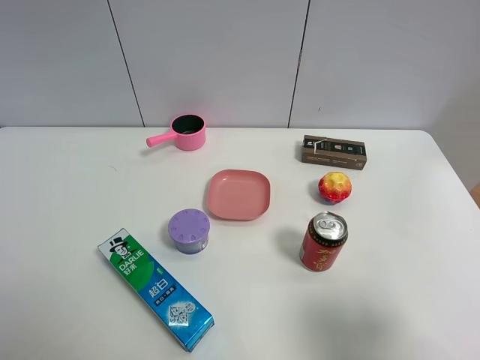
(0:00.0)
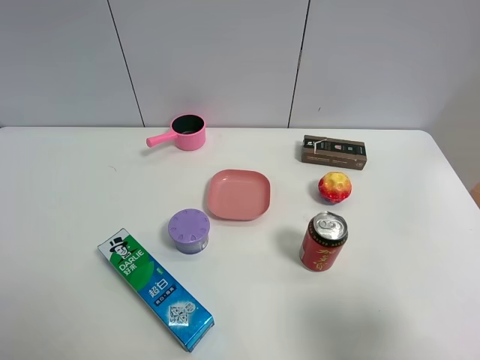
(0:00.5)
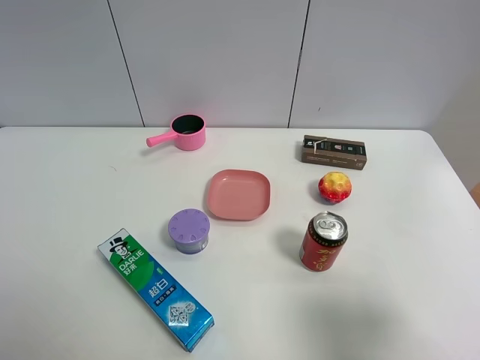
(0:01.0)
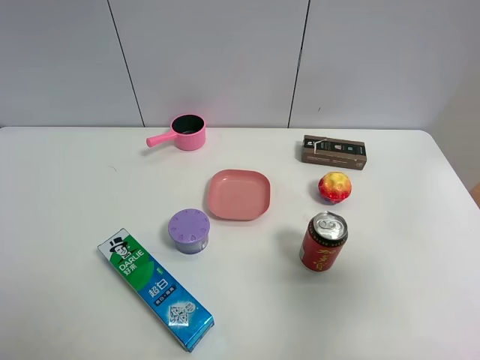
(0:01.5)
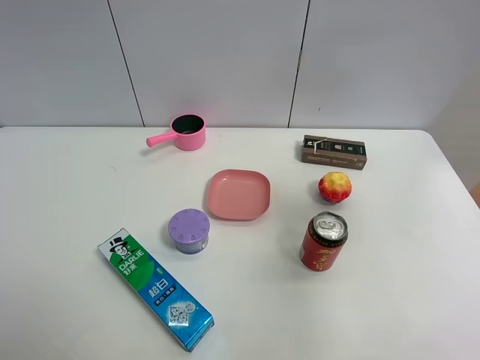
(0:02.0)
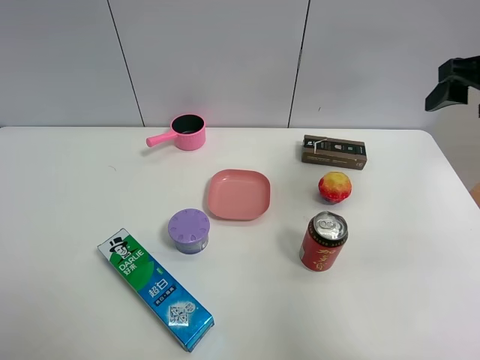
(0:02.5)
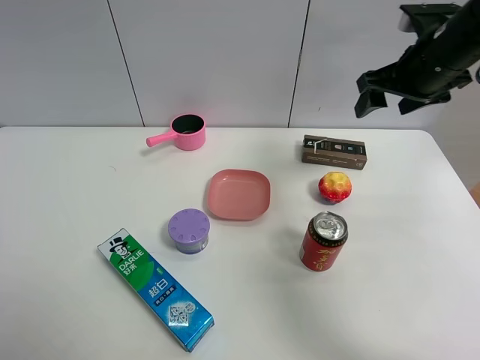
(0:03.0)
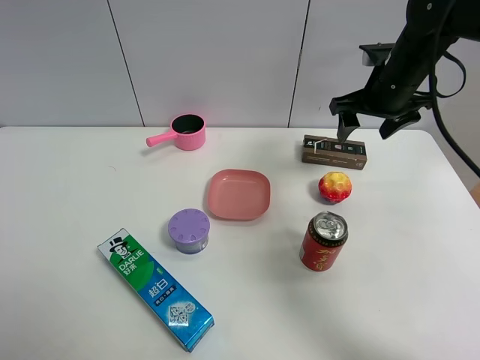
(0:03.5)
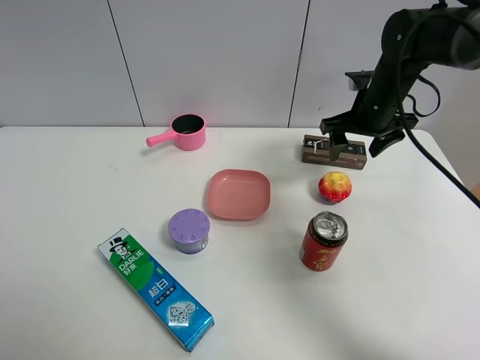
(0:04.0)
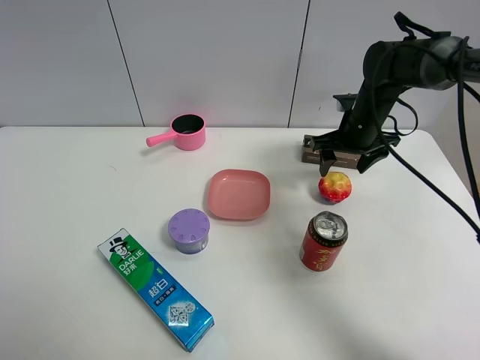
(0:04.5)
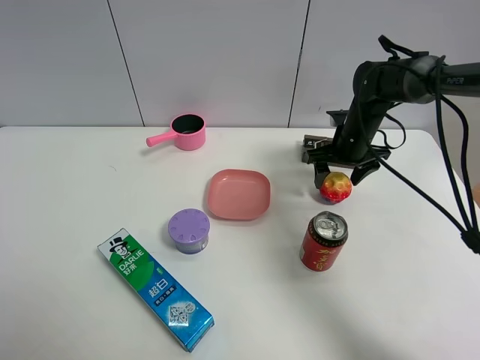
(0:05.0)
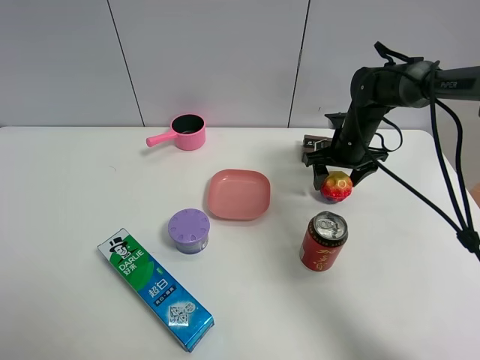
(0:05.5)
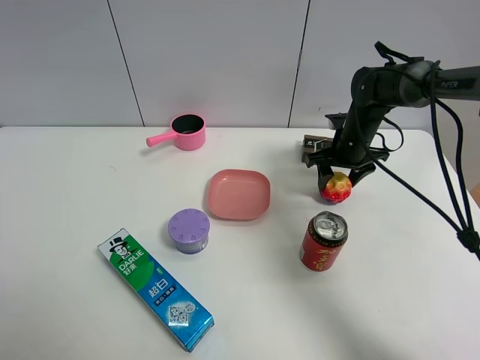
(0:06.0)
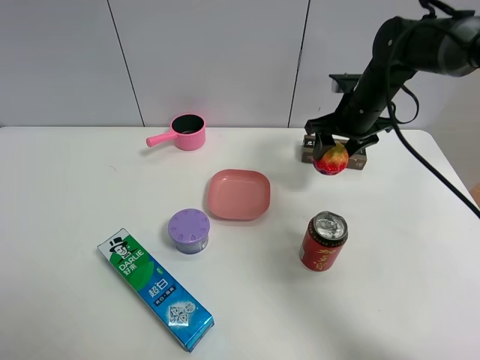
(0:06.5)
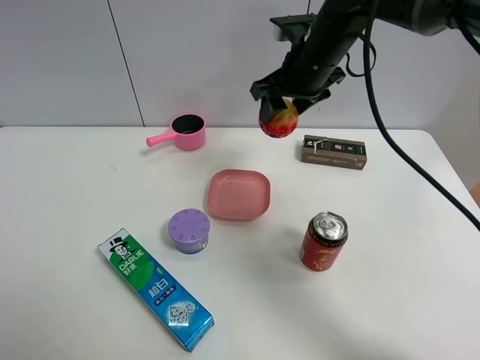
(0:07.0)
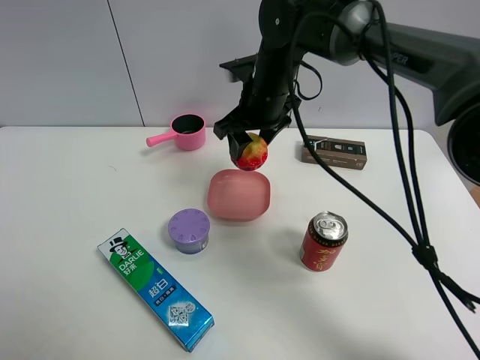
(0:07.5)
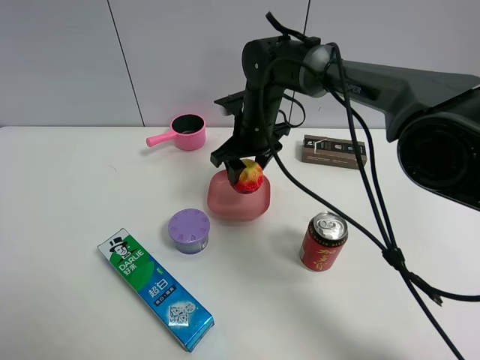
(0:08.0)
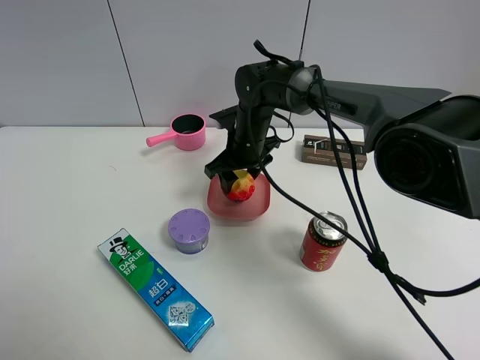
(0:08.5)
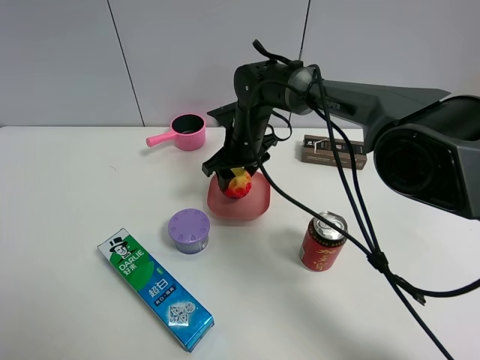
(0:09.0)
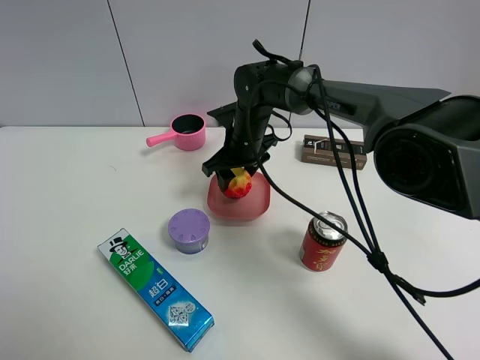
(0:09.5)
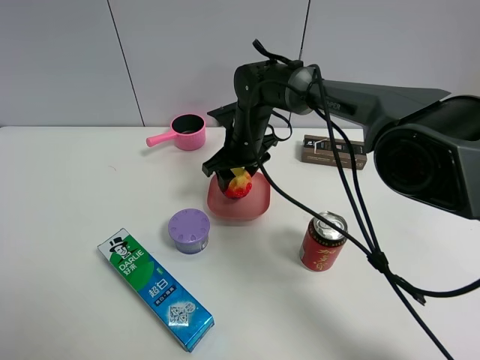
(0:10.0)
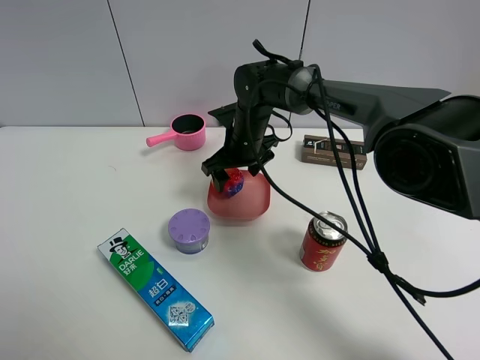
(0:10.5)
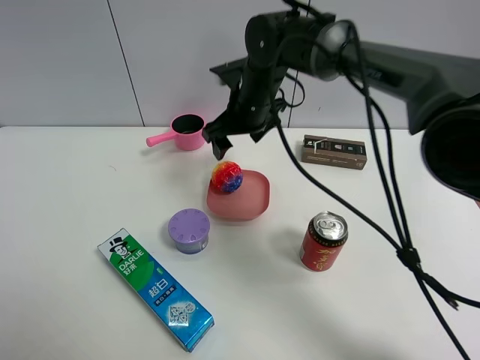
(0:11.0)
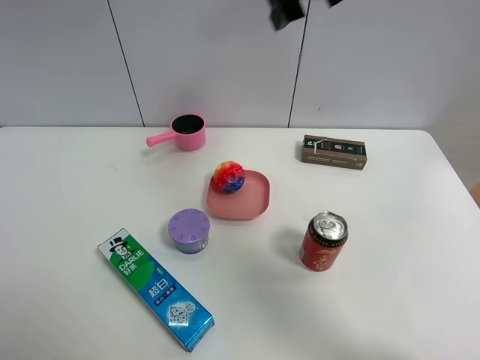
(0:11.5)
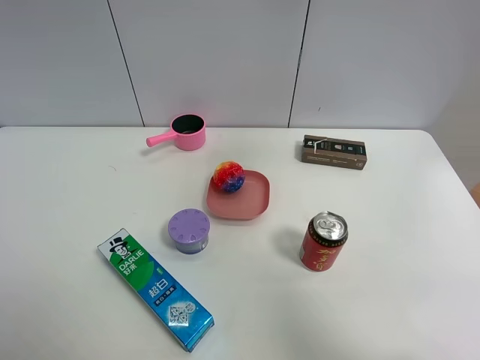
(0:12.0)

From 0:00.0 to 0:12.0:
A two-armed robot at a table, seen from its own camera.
Task of the whole recording: the gripper move the object.
Step, from 0:00.0 to 0:05.5: Grasp the colorful ball with the right gripper.
Step, from 0:06.0 to 0:10.5: Place the colorful ball on the table with the right gripper.
From 0:00.0 to 0:02.0: The right gripper is displaced forward and upward by about 20 cm.
From 0:02.0 to 0:04.0: The right gripper goes about 30 cm forward, downward and to the left.
From 0:04.0 to 0:06.0: The right gripper is displaced downward by roughly 10 cm, and closes up.
From 0:06.0 to 0:08.0: The right gripper moves to the left, approximately 20 cm.
From 0:08.0 to 0:10.0: The grippers move only a little.
From 0:10.0 to 0:12.0: The right gripper is displaced upward, to the right and backward by roughly 50 cm, and opens.

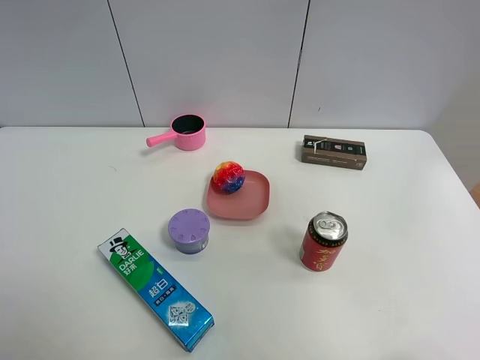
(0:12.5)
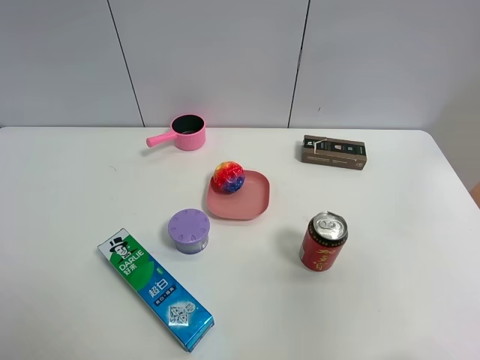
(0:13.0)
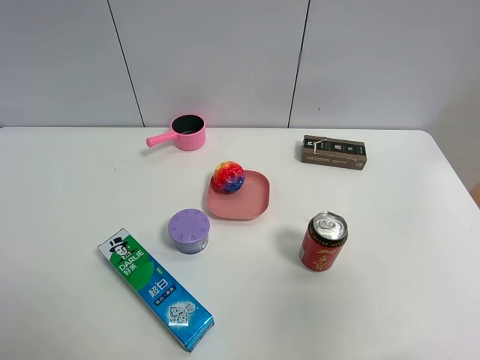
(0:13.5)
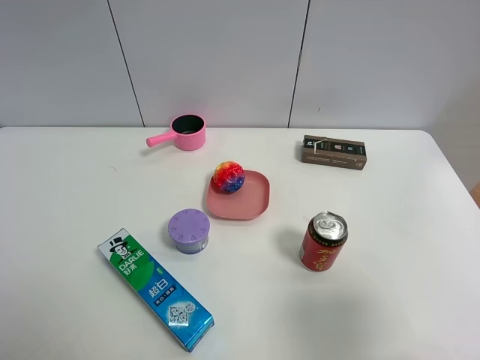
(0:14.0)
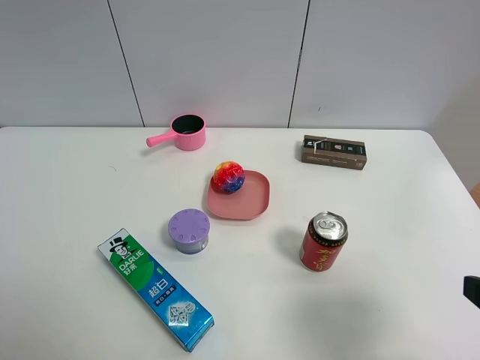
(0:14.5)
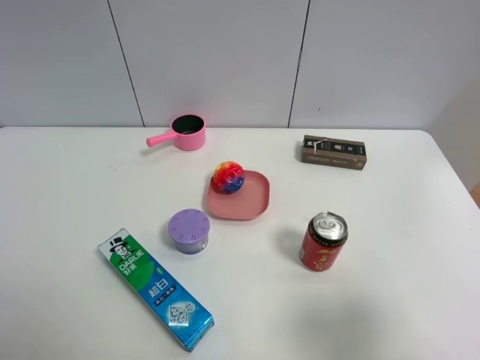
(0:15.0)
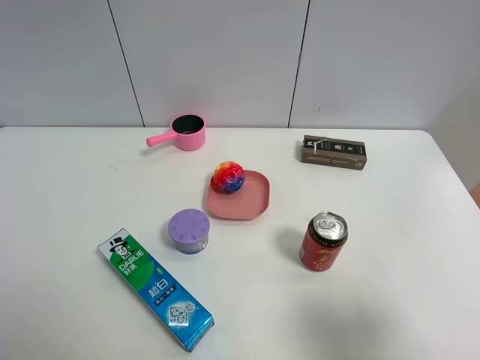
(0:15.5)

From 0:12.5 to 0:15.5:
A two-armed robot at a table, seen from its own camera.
Task of the whole recording: the gripper move the object.
From 0:12.5 to 0:14.0: The right gripper is displaced downward by approximately 30 cm.

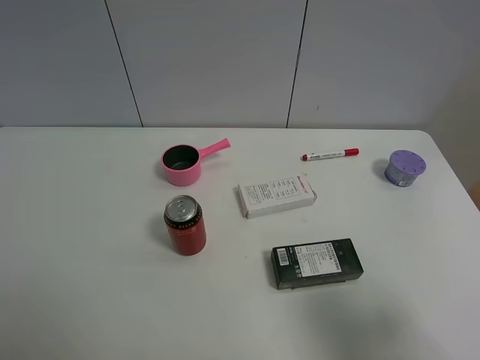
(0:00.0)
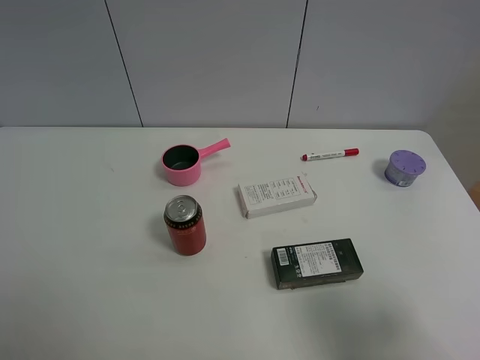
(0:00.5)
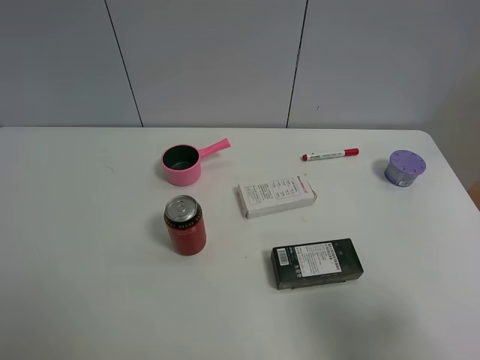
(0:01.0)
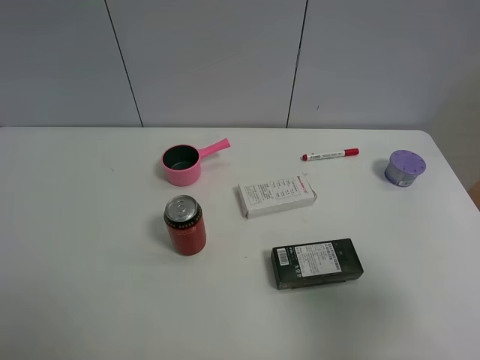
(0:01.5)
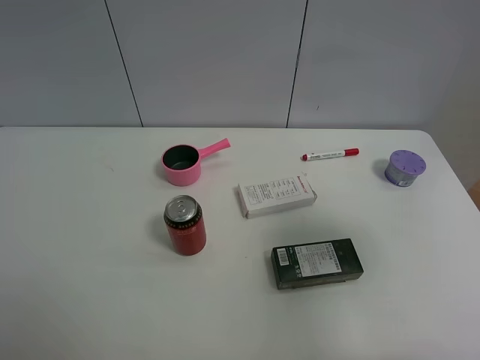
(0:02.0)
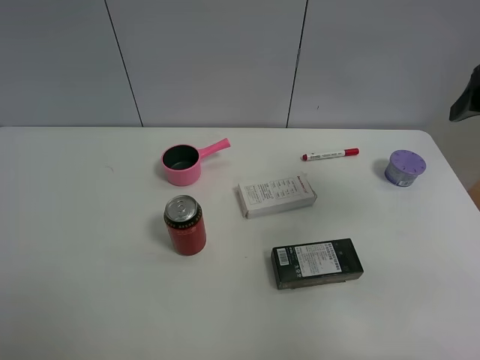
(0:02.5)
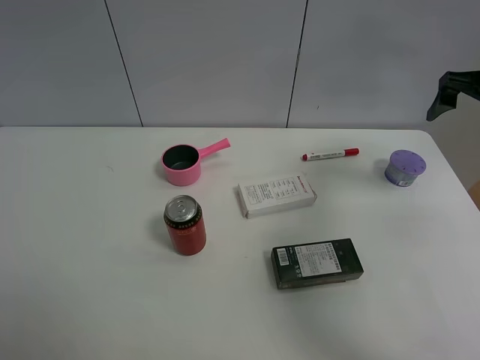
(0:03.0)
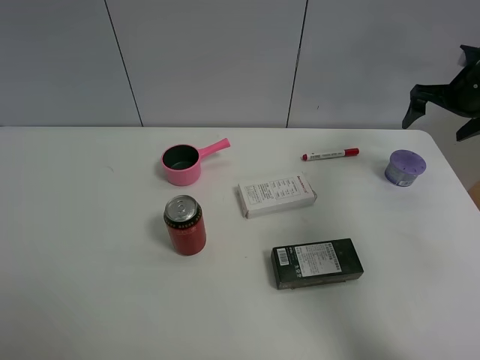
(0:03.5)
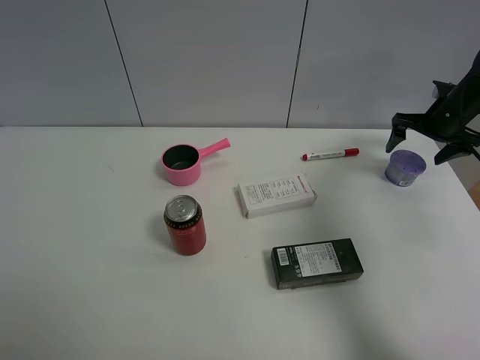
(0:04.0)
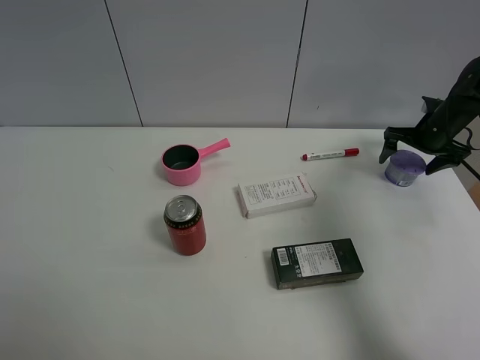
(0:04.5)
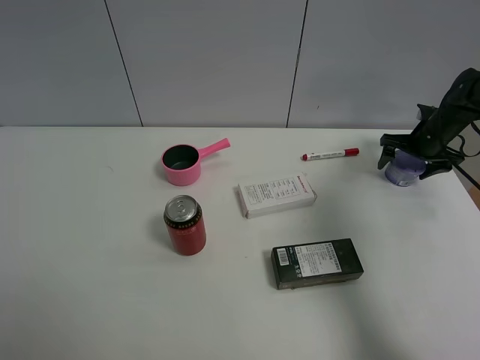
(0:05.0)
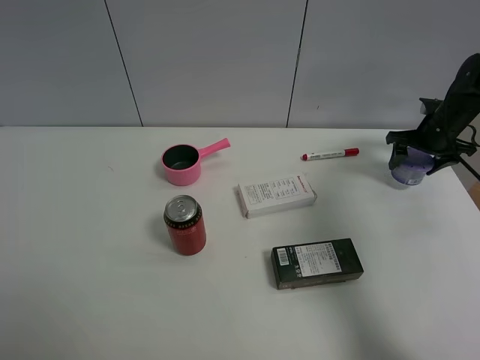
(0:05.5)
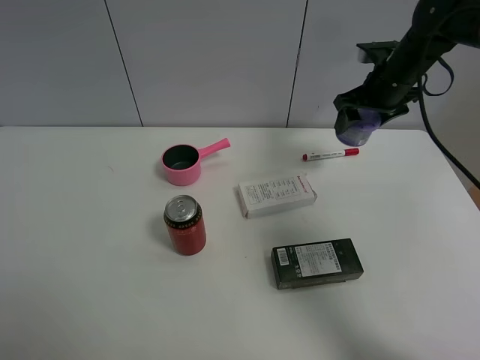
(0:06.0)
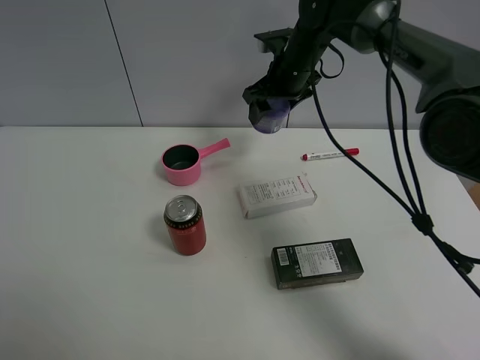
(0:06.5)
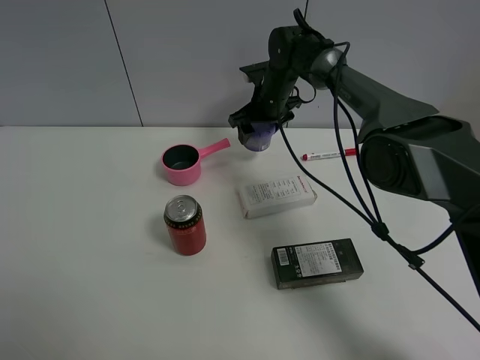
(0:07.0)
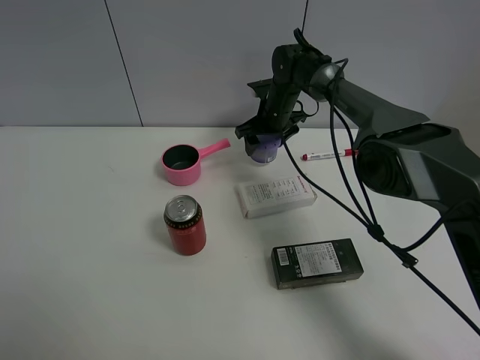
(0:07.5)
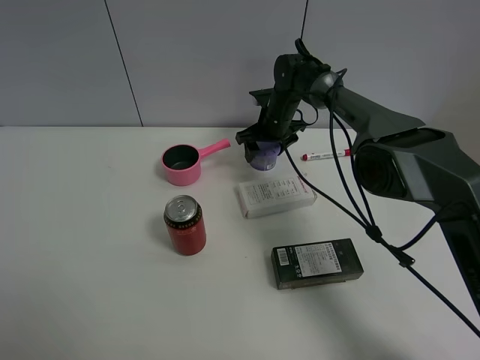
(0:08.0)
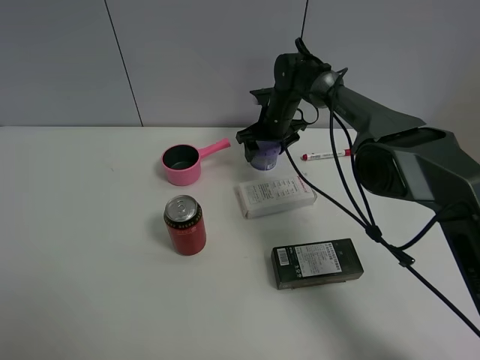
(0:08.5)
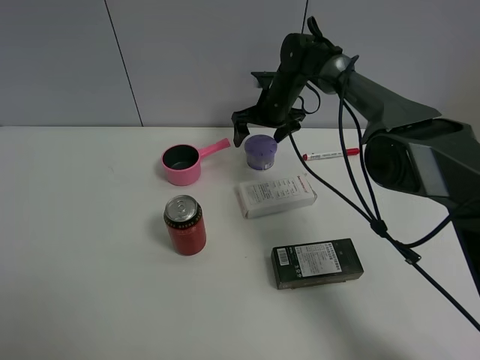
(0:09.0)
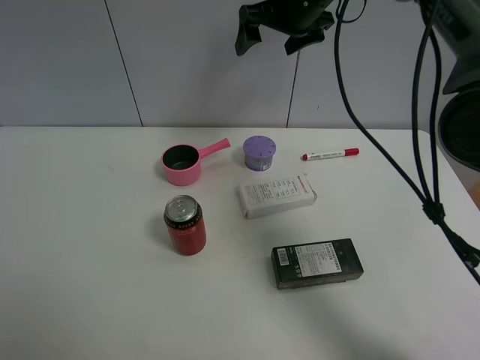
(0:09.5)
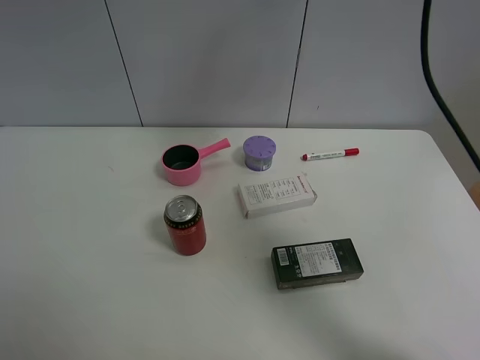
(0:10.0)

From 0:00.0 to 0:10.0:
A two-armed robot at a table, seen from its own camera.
Task of the whole recording: the gripper move the object.
Step, from 0:00.0 to 0:05.0: Grasp the Incense box with the right gripper.
Step, from 0:05.5 to 0:08.5: Place the Incense box on the table with the right gripper.
From 0:00.0 to 0:02.0: The right gripper shifts approximately 15 cm forward and upward.
From 0:02.0 to 0:04.0: The right gripper heads forward and downward, covering approximately 35 cm.
From 0:04.0 to 0:06.0: The right gripper goes about 15 cm to the left and upward, and closes its fingers.
From 0:06.0 to 0:08.0: The right gripper heads to the left, downward and forward, covering about 20 cm.
From 0:08.0 to 0:10.0: The right gripper heads upward, covering roughly 35 cm, and opens up.
